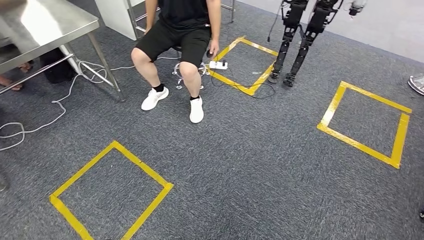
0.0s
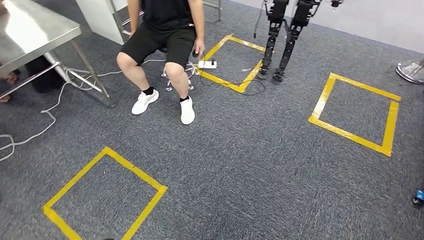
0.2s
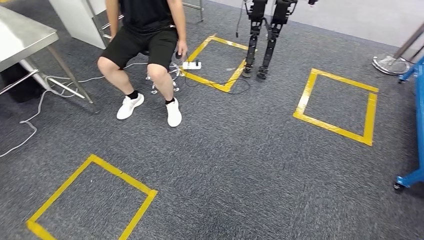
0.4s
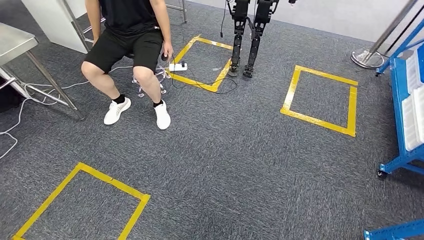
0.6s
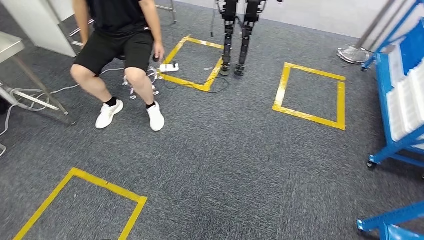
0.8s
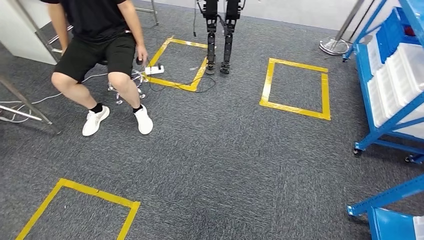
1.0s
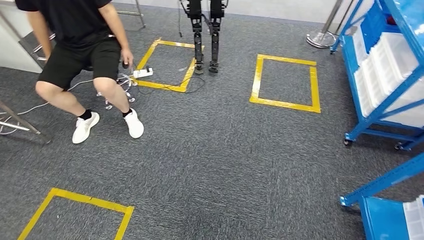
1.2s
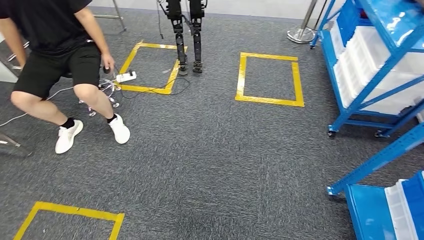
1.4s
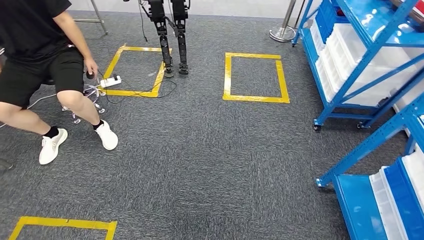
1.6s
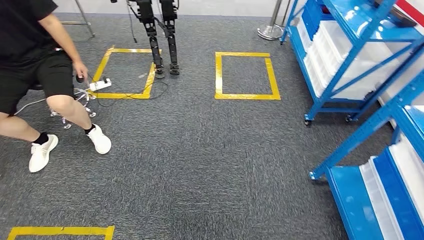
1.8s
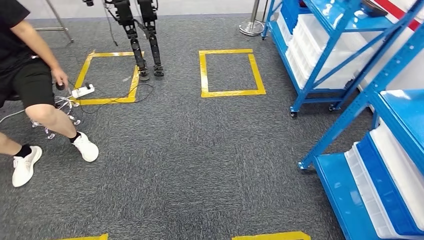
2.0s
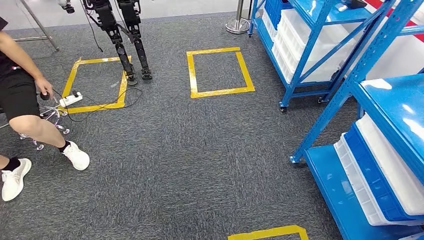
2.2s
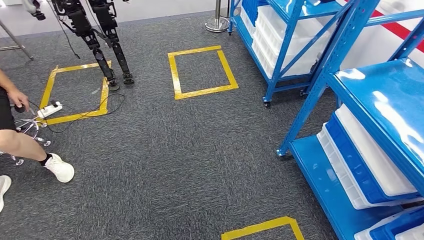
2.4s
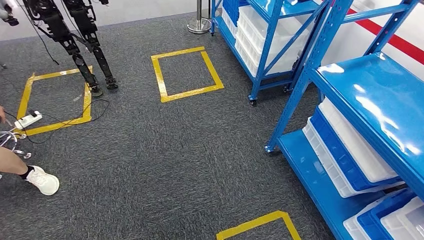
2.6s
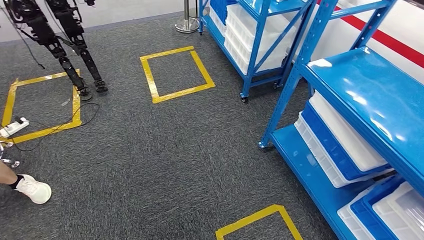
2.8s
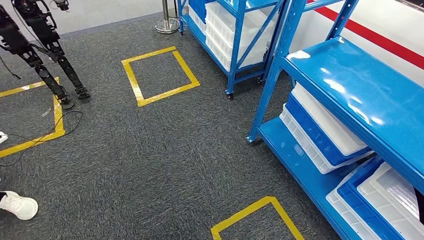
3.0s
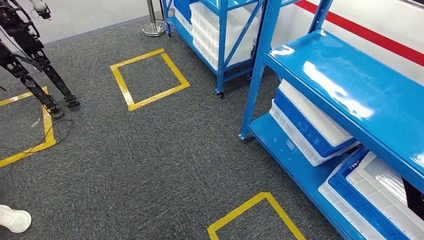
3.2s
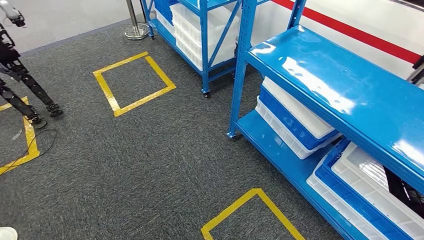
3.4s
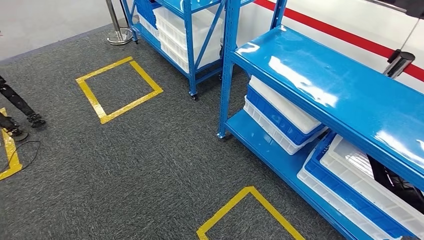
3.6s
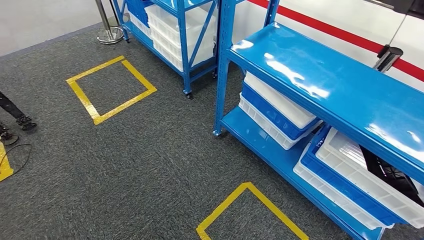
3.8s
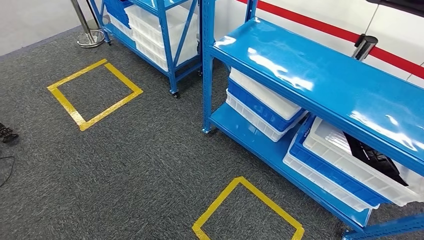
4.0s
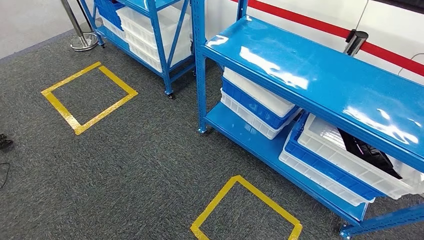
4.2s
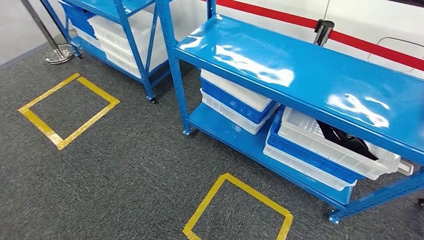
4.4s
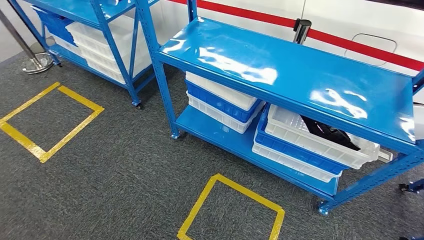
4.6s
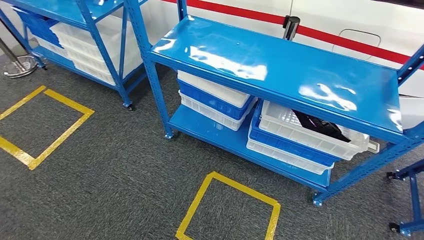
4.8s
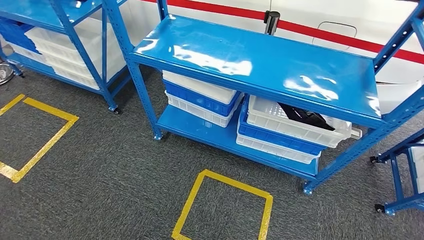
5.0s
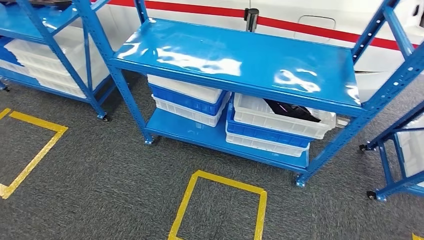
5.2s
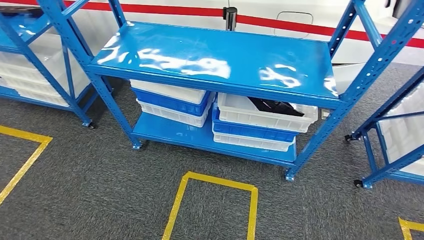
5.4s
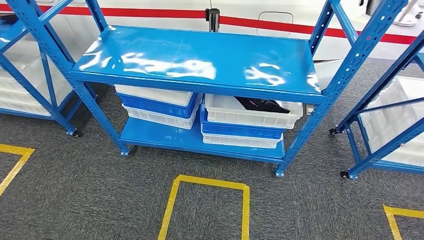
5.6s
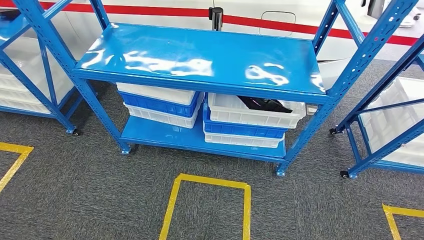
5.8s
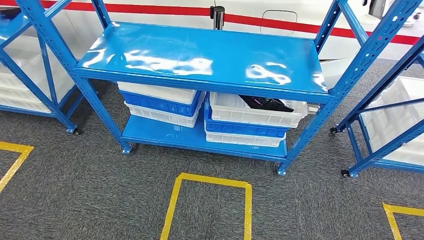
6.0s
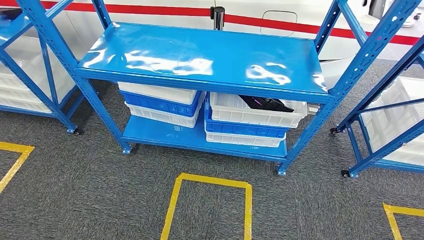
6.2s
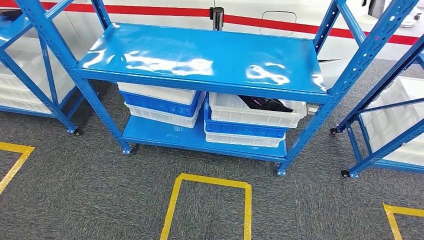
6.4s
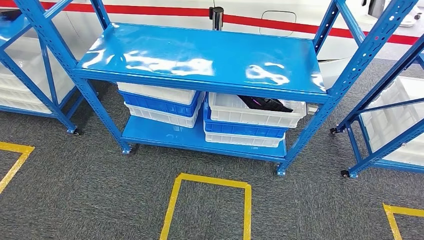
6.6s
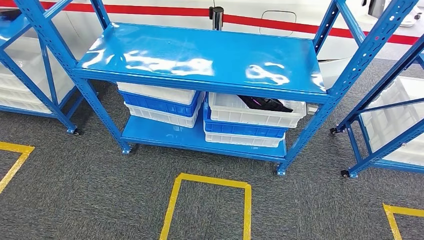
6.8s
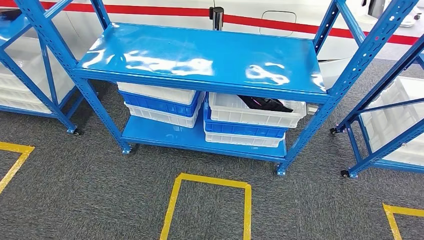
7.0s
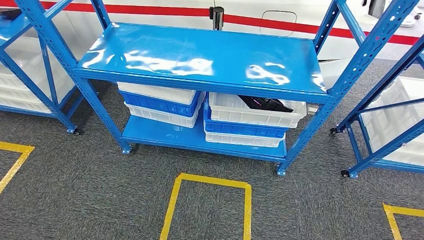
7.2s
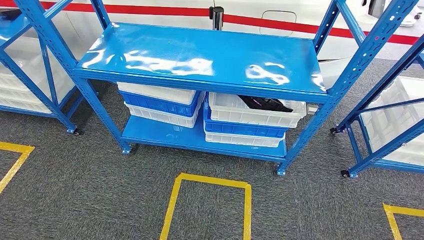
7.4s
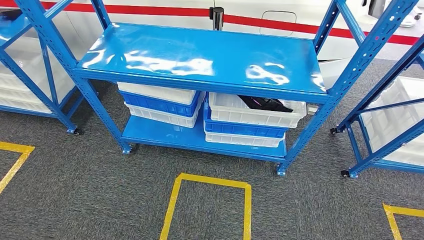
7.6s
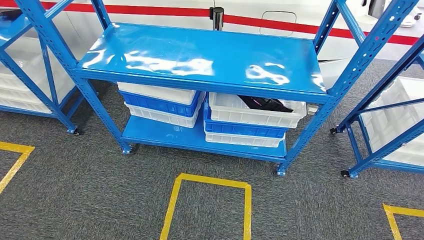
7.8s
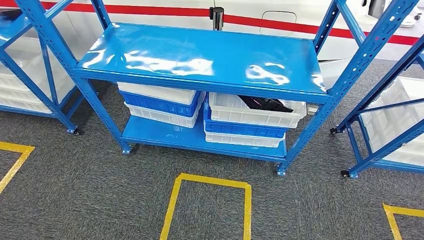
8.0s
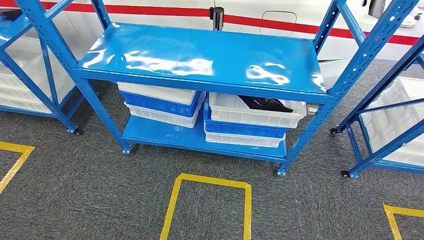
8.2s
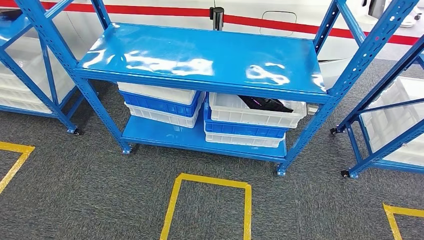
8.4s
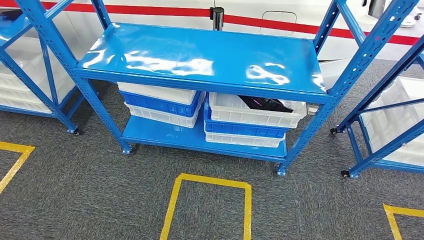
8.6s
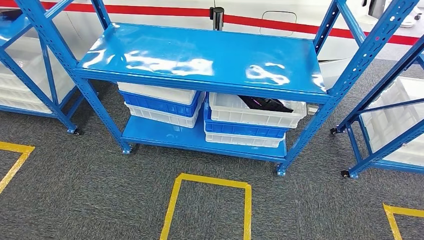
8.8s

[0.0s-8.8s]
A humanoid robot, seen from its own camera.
Step, 0.0s to 8.8s: Return to the initial position at the shelf.
5.8s to 7.4s: The hands move only a little.
